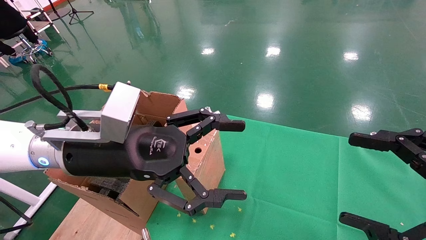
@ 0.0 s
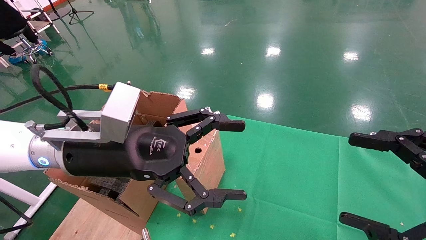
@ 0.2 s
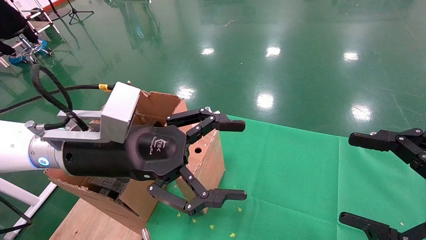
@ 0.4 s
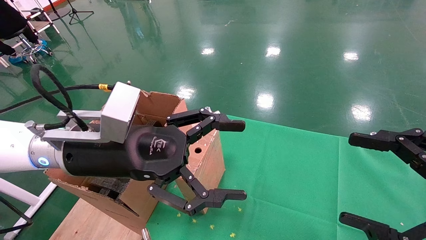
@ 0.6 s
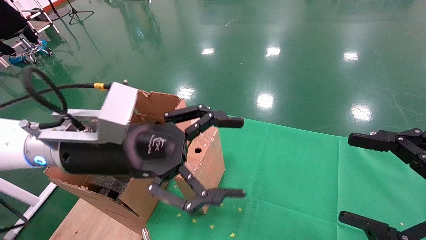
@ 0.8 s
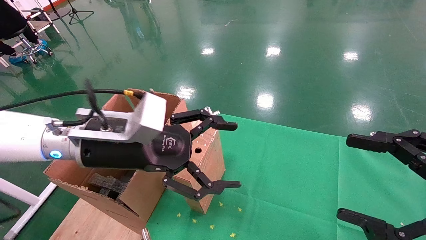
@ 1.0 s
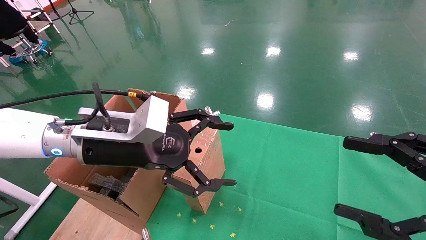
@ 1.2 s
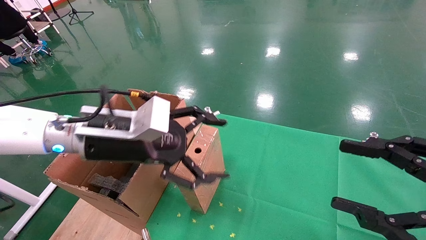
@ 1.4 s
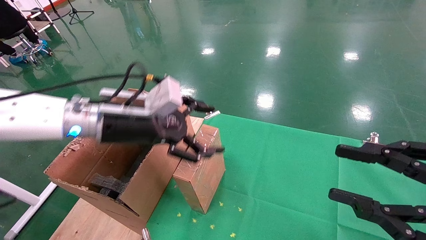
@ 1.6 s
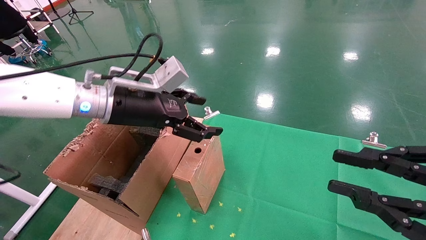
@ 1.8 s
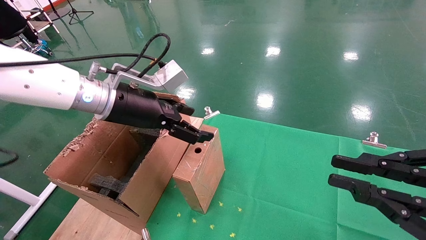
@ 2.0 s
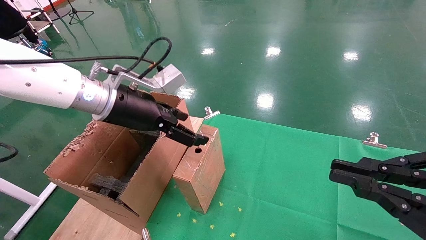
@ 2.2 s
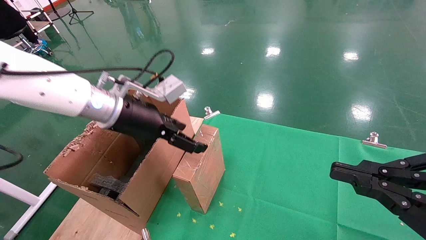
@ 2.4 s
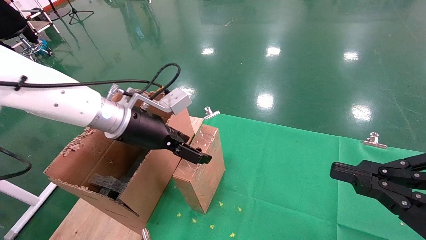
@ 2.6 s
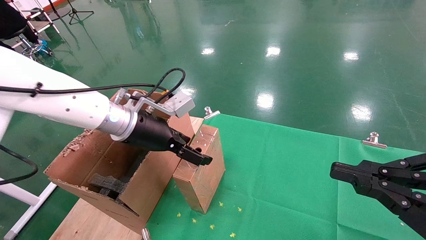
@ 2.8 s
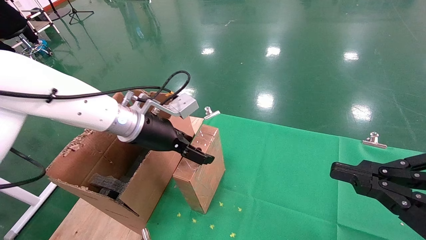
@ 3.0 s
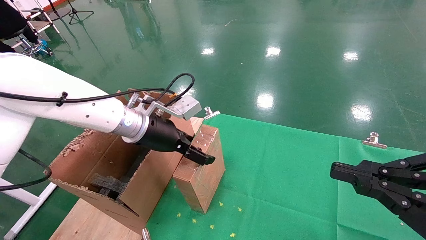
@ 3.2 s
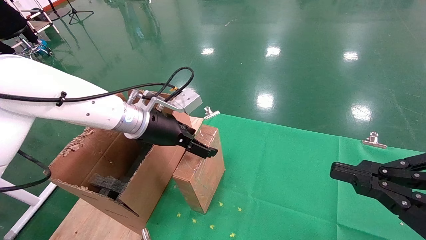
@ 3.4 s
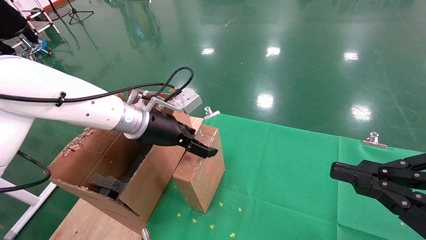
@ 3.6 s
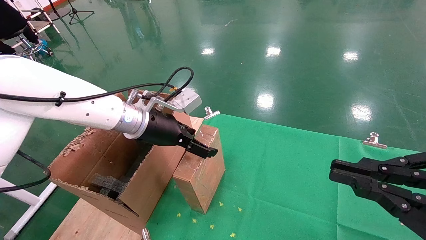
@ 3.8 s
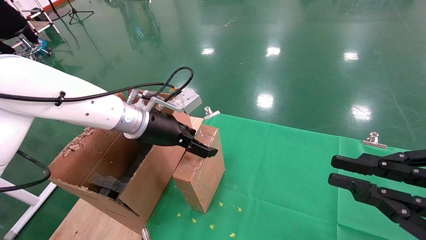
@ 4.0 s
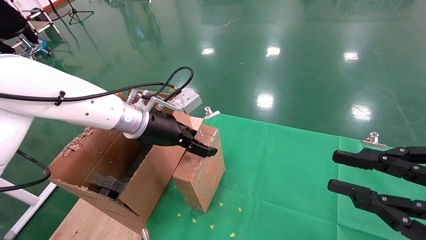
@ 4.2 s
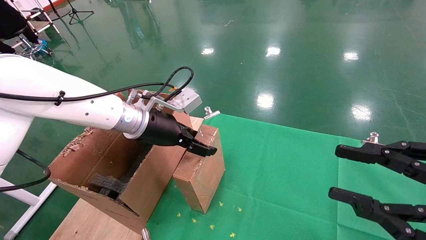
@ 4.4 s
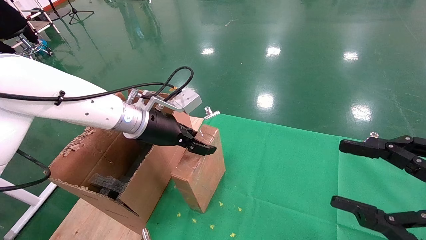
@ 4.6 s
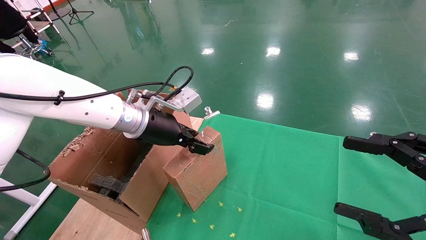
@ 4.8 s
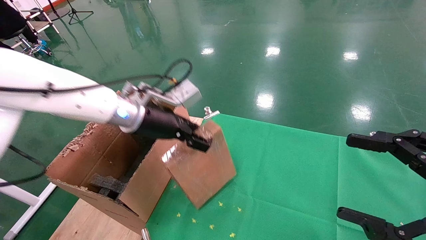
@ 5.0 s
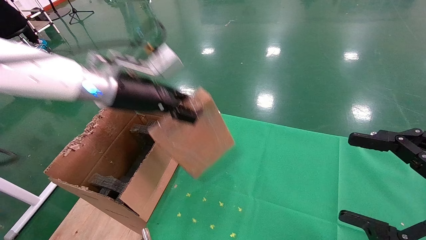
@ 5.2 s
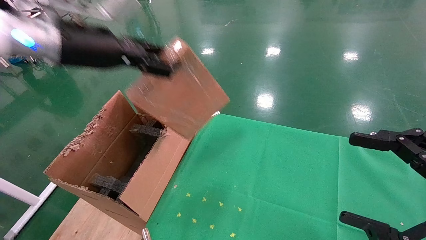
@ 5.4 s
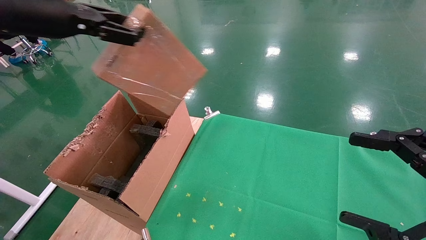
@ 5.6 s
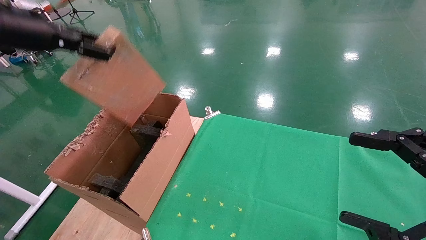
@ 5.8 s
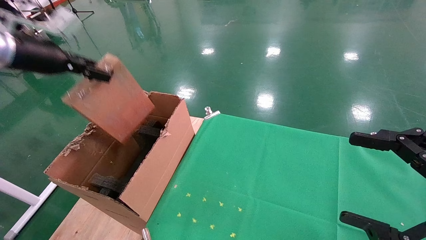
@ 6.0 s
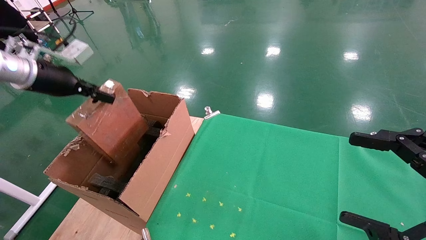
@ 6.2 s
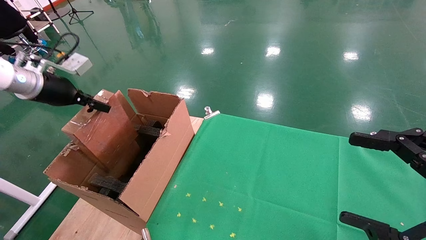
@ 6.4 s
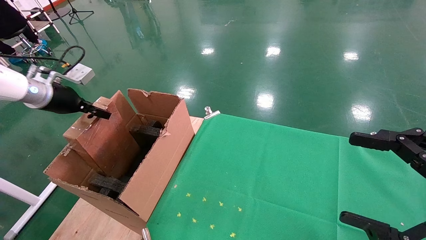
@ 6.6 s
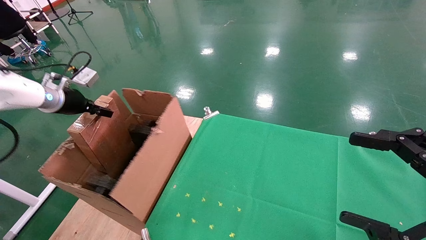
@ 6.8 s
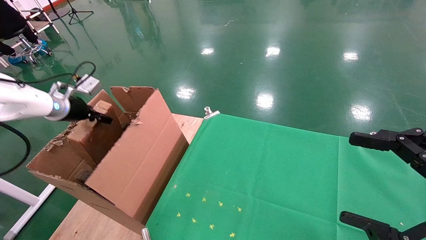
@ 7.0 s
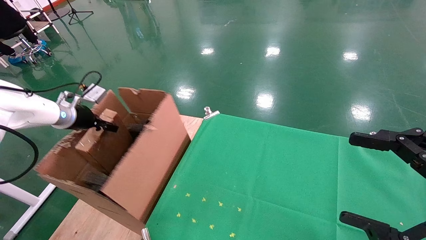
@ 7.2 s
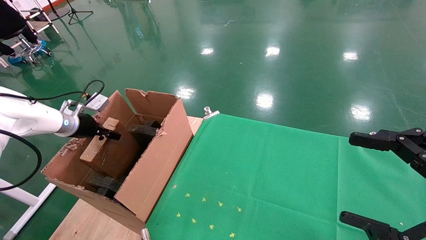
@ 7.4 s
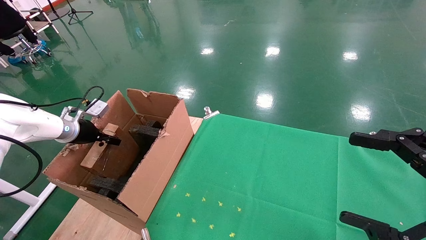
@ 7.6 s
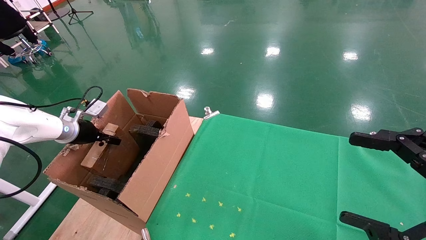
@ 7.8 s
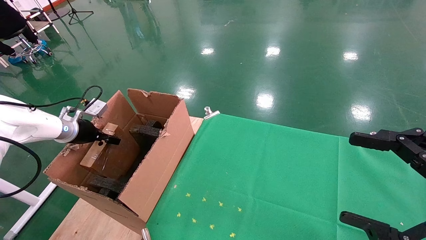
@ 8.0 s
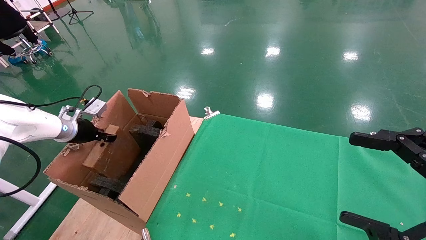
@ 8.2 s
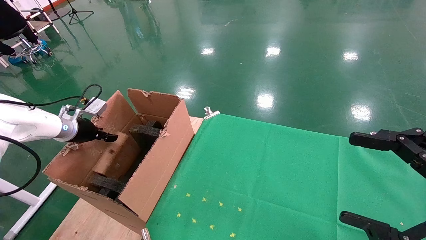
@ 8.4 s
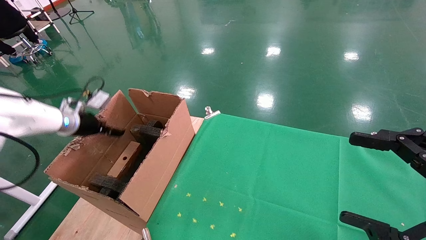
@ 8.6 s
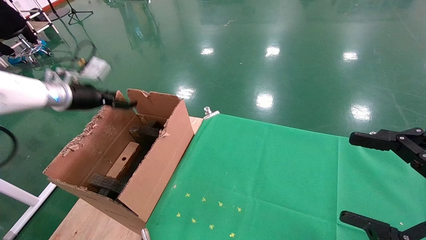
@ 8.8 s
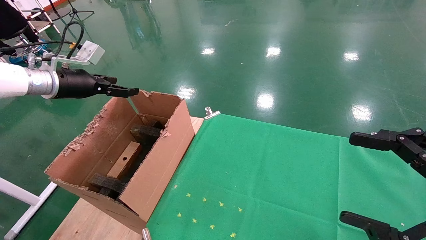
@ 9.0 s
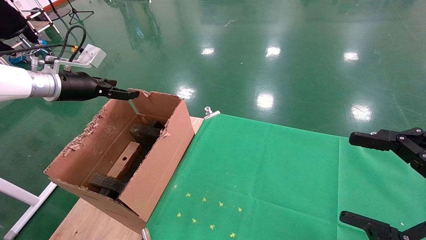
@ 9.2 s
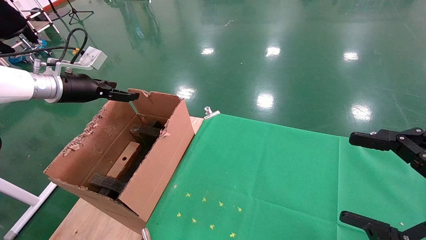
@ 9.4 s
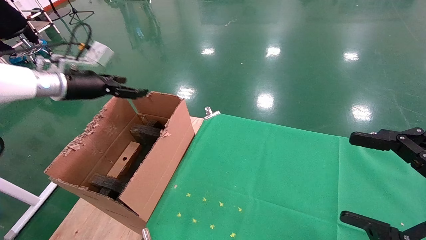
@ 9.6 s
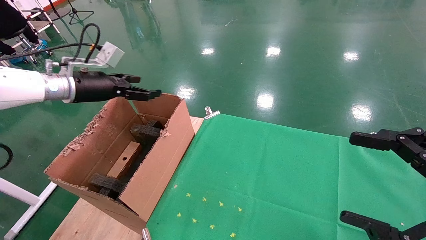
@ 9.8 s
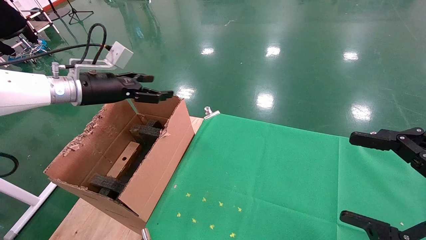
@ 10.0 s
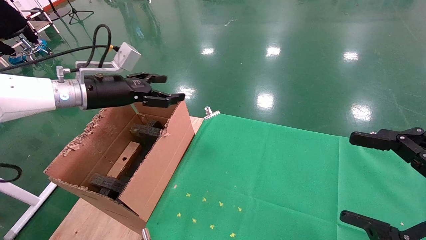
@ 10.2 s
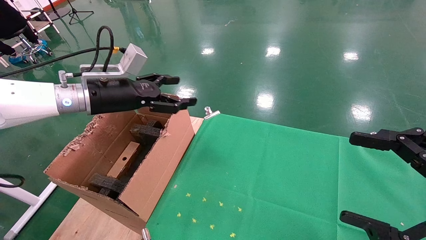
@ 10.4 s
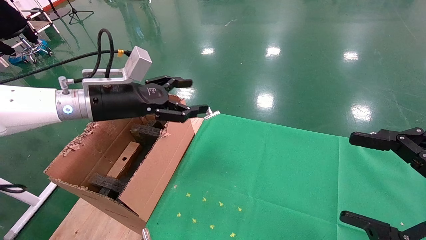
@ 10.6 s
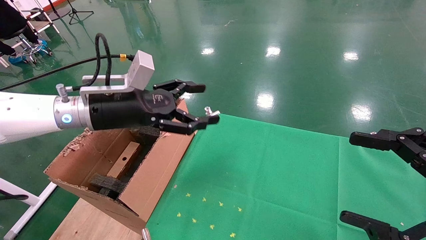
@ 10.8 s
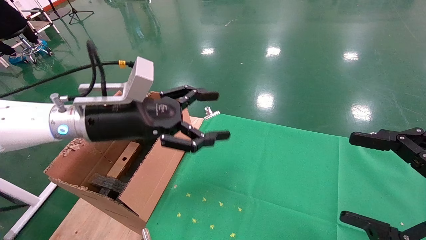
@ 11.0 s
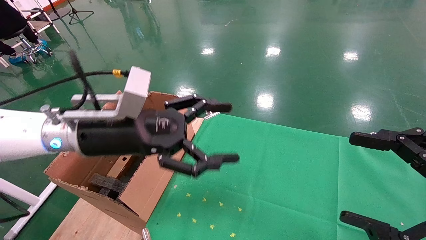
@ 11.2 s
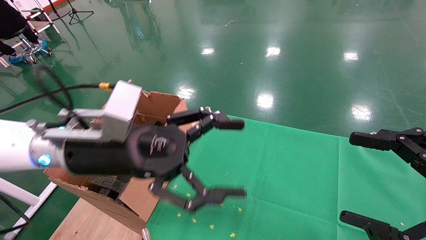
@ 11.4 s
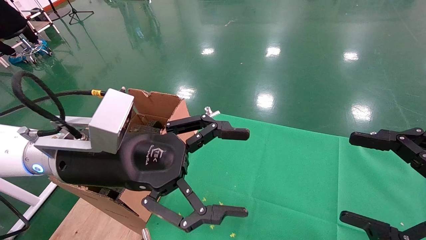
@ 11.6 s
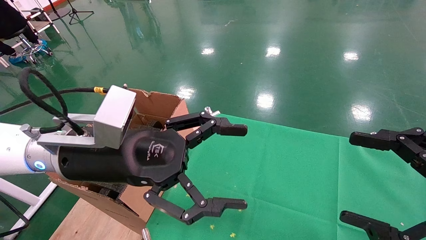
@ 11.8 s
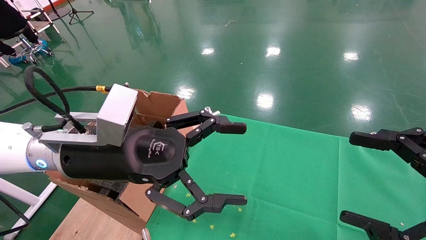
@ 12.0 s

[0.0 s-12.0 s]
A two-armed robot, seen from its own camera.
Task of the whole recording: using a robotic arm to pick up a cardboard box and palace it the carton.
Step, 1.0 to 4.8 s: Pick up the mouse and the power cord paper box.
Step, 5.0 to 8.4 s: Place the mouse and the power cord paper box into the container.
0.0 to 1.6 s: The left gripper shifts about 5 cm forward. Meanwhile the right gripper closes.
1.6 to 3.0 s: The right gripper closes its fingers. Meanwhile the left gripper shifts roughly 5 cm forward.
3.0 to 4.4 s: Both grippers stay put.
4.4 to 6.0 s: The right gripper opens, while the left gripper travels to the left and upward by about 25 cm, and closes its fingers.
6.0 to 7.6 s: The left gripper travels downward and forward by roughly 20 cm.
7.6 to 9.0 s: The left gripper shifts roughly 10 cm upward, and opens up.
9.0 to 10.4 s: The left gripper moves to the right, approximately 15 cm.
10.4 to 12.0 s: The left gripper travels backward and to the right by roughly 15 cm.

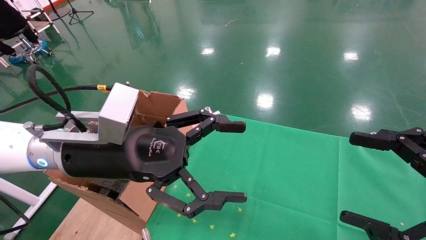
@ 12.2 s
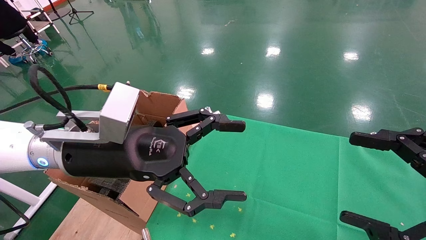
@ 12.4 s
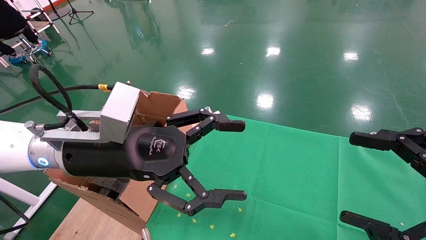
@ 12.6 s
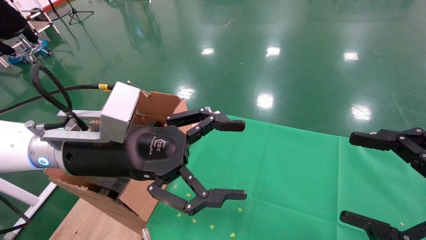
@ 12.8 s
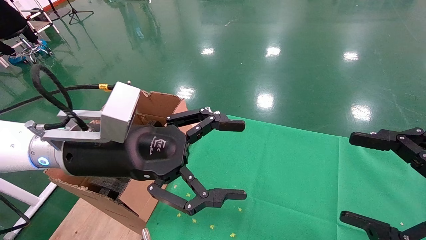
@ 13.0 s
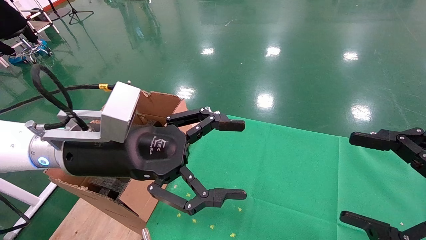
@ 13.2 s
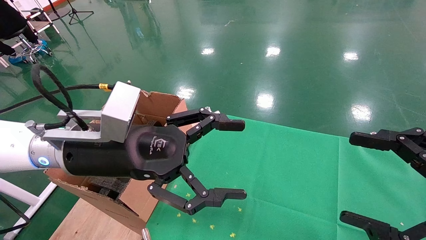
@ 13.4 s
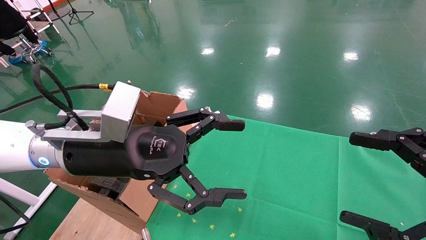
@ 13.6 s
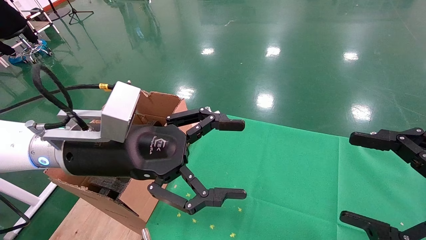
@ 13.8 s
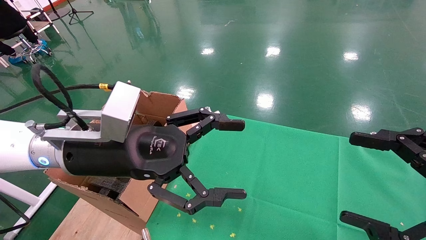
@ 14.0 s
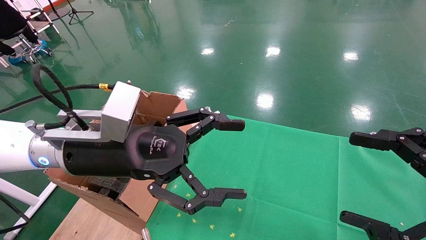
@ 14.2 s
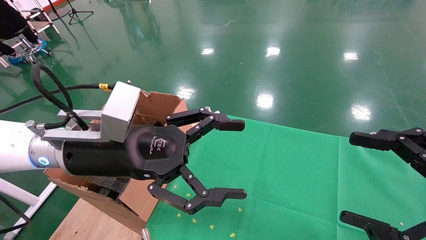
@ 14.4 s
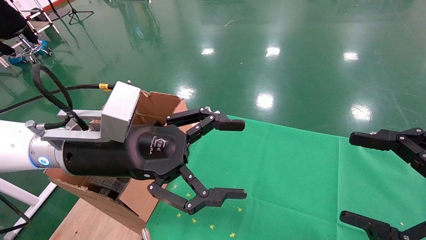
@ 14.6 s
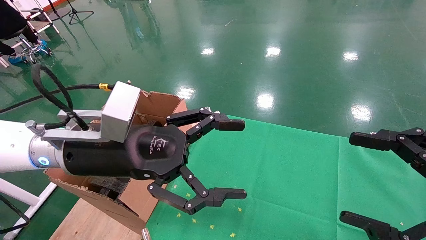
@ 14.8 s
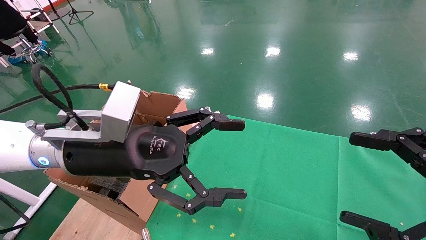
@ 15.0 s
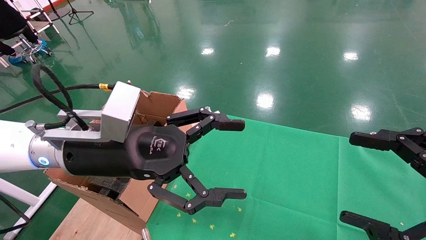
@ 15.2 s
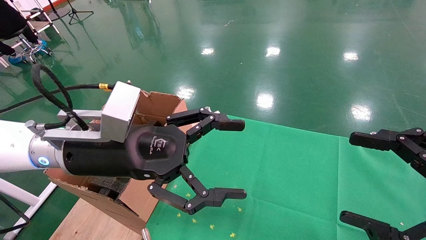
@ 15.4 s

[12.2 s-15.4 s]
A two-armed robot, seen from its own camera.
Task of the whole recording: using a robotic arm to pick up a cardboard box and palace it the carton.
12.2 to 15.4 s: Both grippers stay about where they are.

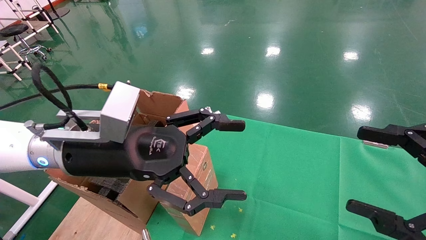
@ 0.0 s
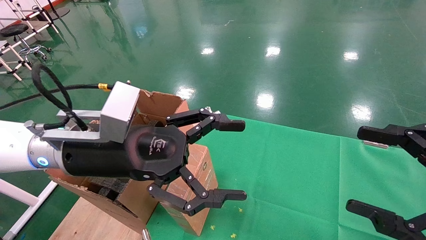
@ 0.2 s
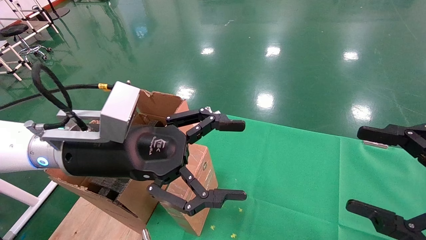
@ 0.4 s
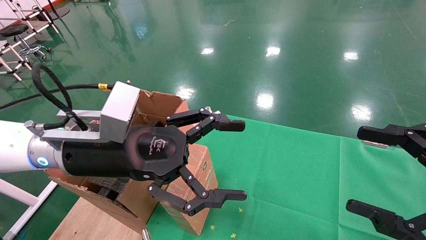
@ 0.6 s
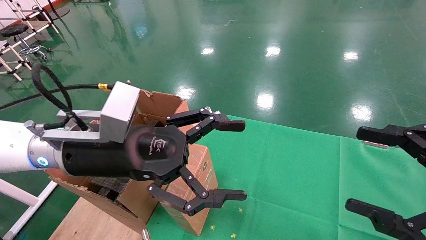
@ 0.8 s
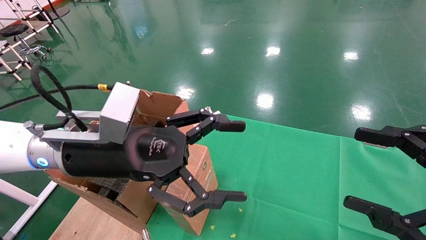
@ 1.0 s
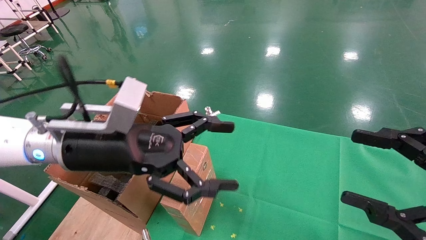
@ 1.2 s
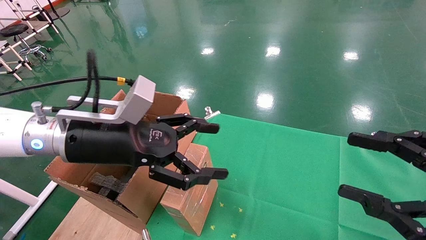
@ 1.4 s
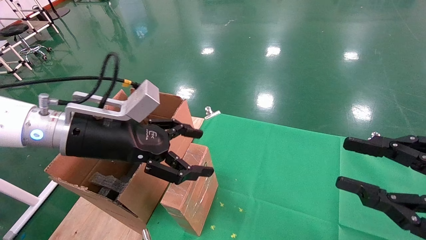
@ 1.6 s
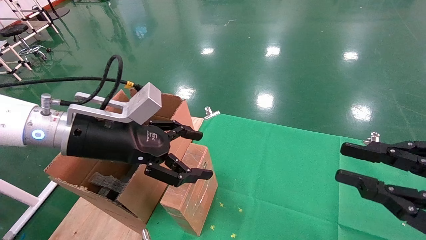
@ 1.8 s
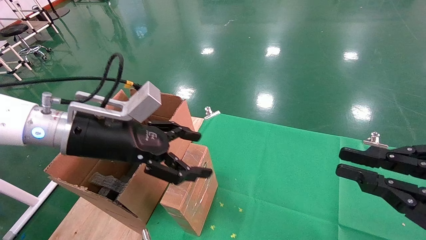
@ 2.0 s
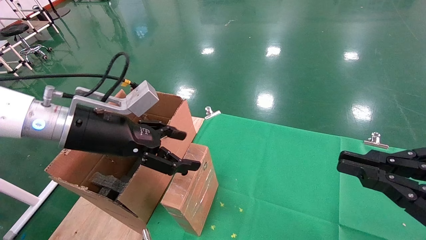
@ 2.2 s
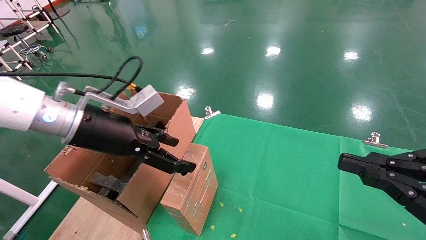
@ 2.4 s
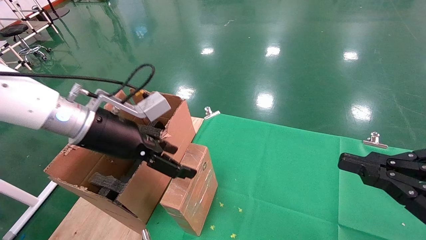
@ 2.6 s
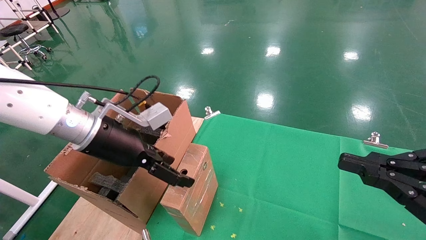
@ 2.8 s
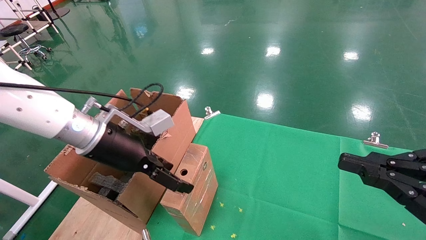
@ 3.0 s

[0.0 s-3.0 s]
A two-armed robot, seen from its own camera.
Task of the whole recording: using a robotic arm to pick up a cardboard box and palace it the carton.
0.0 to 1.6 s: The right gripper closes.
1.6 to 3.0 s: The right gripper closes its fingers.
